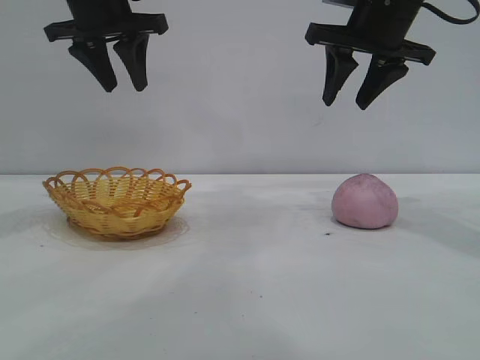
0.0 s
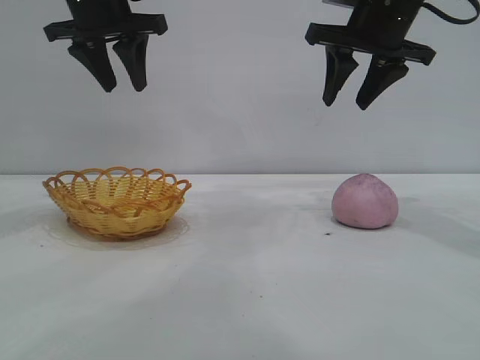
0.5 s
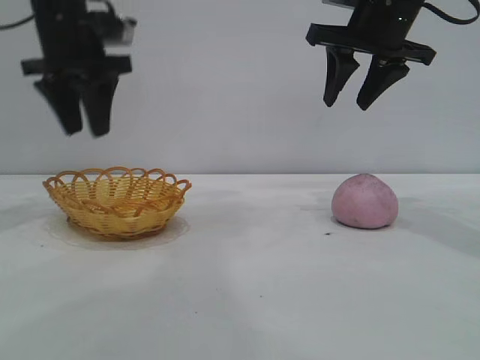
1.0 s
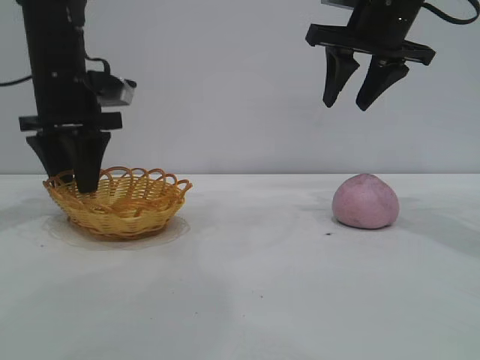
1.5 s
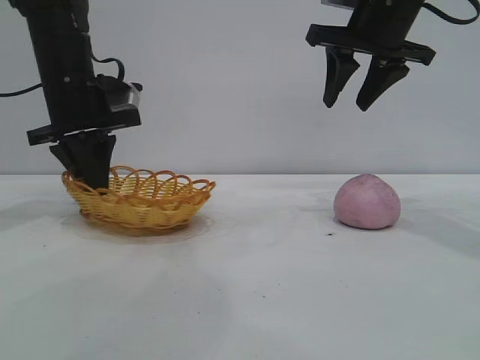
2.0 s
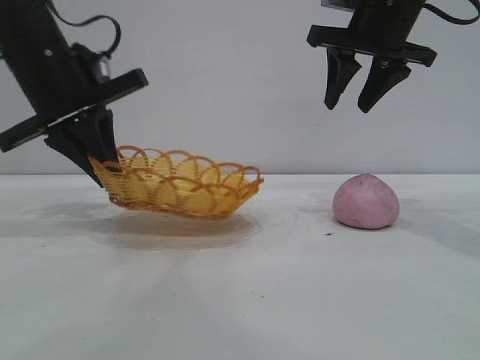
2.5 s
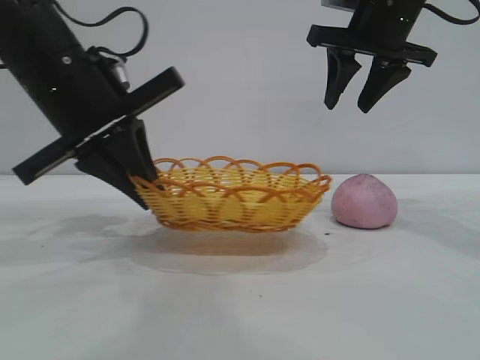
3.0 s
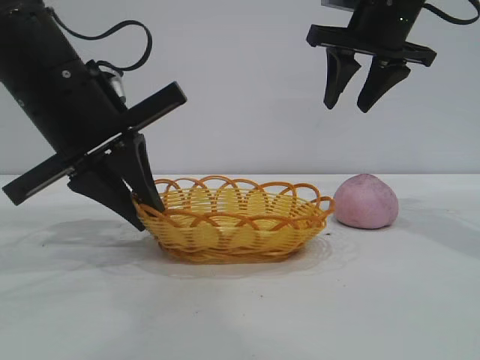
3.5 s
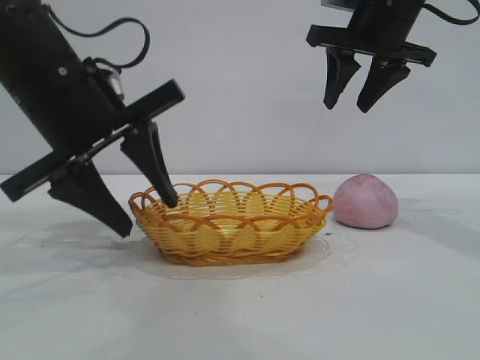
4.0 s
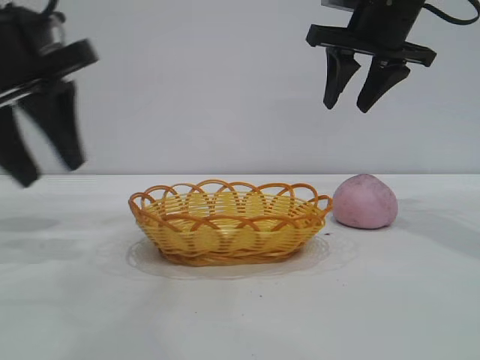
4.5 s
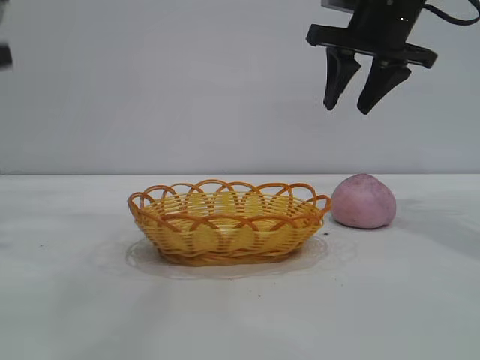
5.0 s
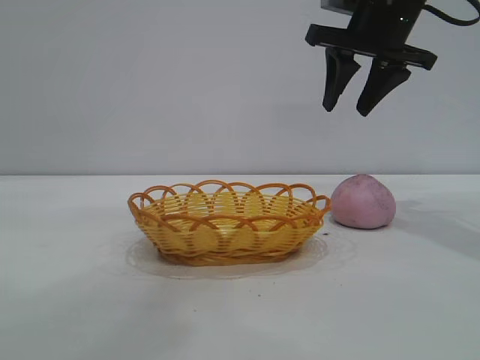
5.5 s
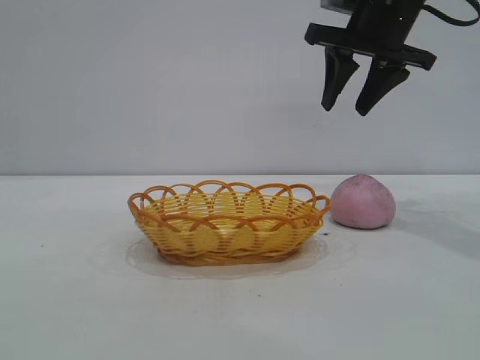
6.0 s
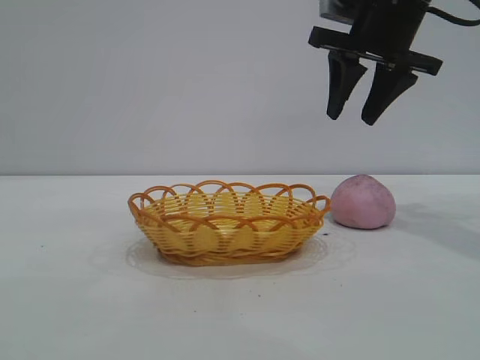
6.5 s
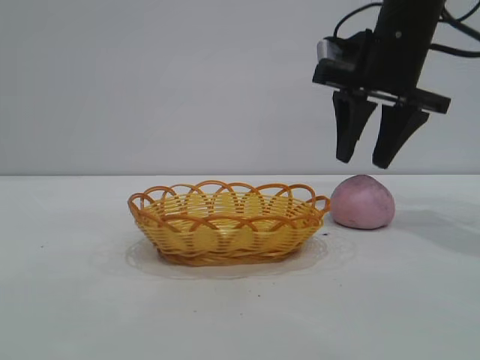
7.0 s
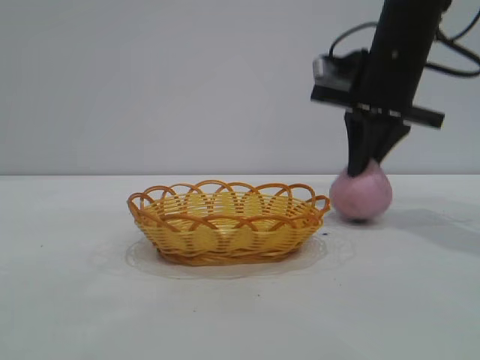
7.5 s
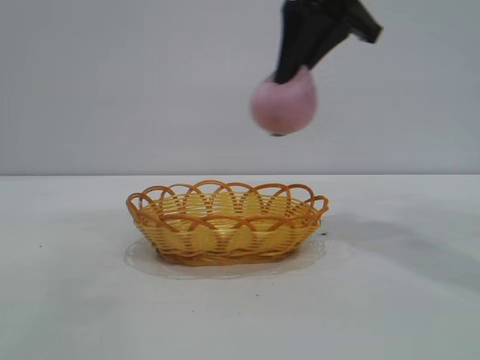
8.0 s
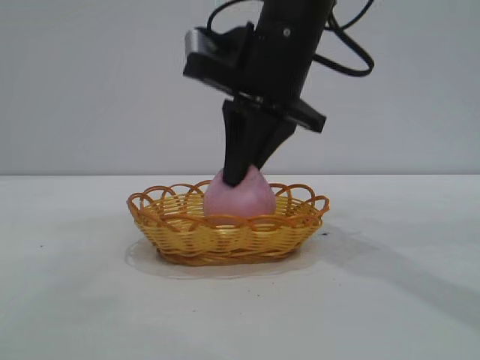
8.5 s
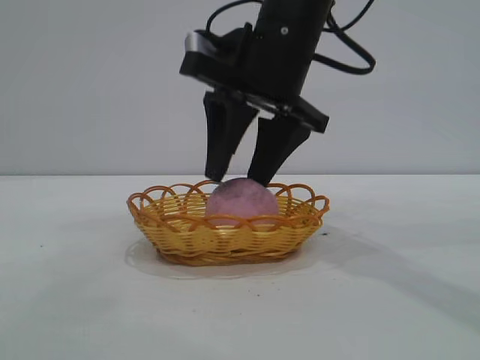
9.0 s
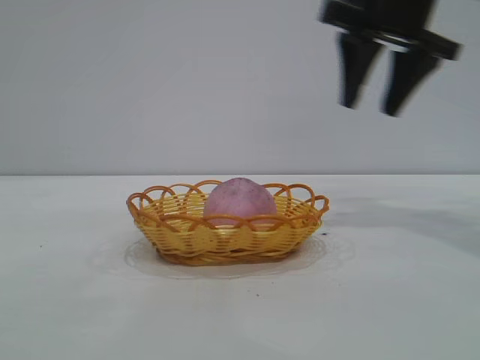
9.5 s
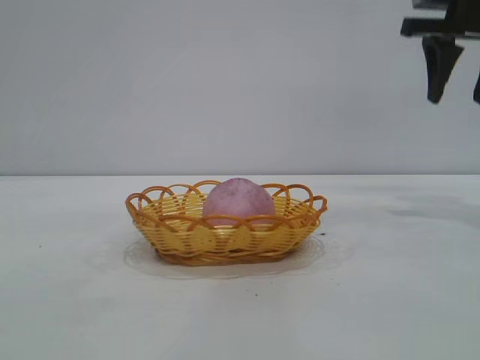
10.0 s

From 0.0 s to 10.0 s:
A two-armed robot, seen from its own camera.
Task of the whole recording: pick up the peach and put it into the basket.
Step, from 0.0 s to 4.0 s: Move the basket to the center of view.
Step, from 4.5 s to 7.5 s: Pick up the peach.
Step, from 8.0 s to 9.0 s: place the peach into the basket.

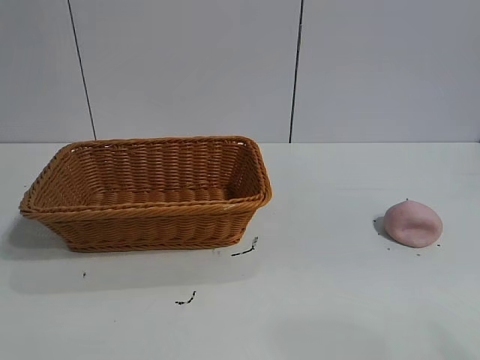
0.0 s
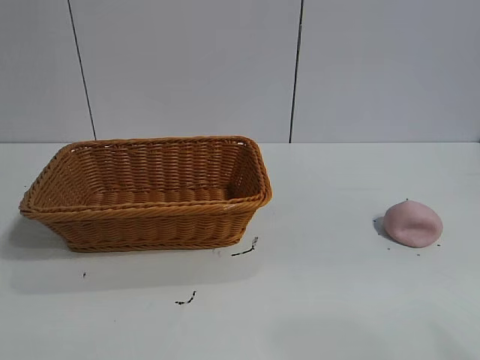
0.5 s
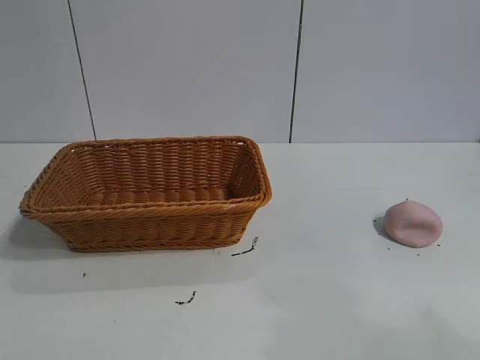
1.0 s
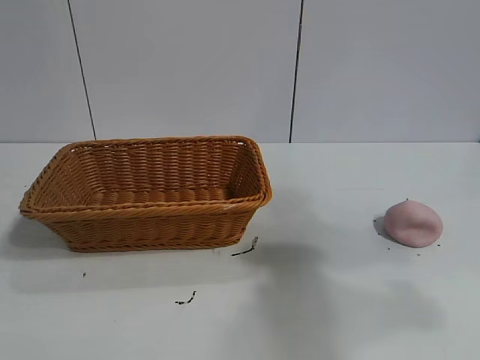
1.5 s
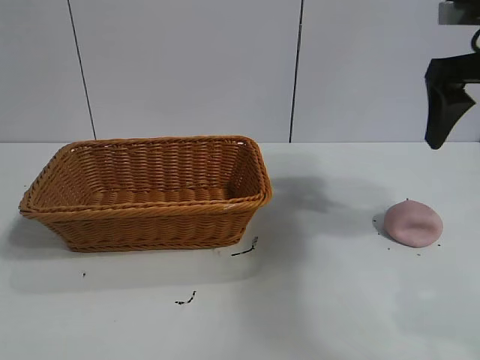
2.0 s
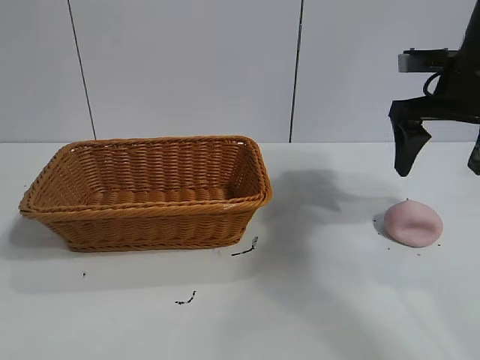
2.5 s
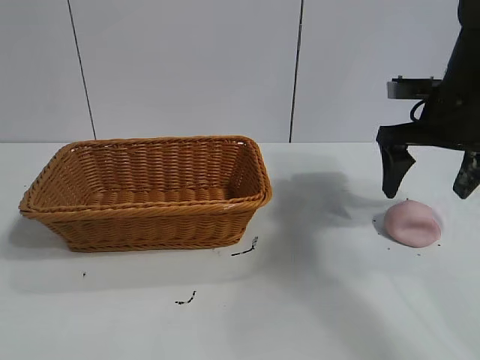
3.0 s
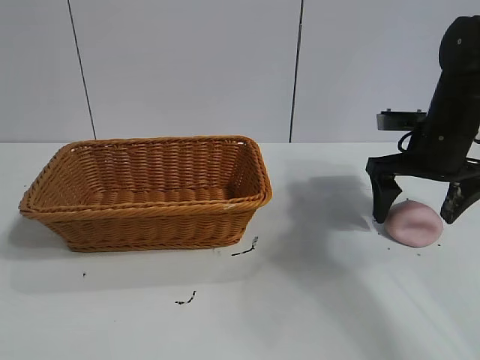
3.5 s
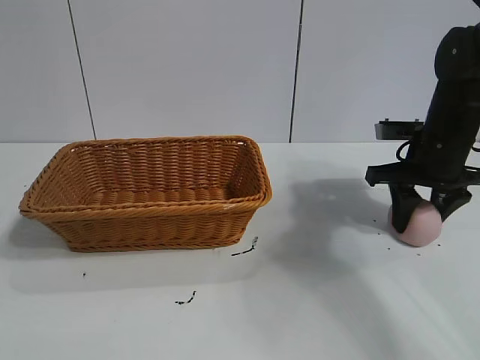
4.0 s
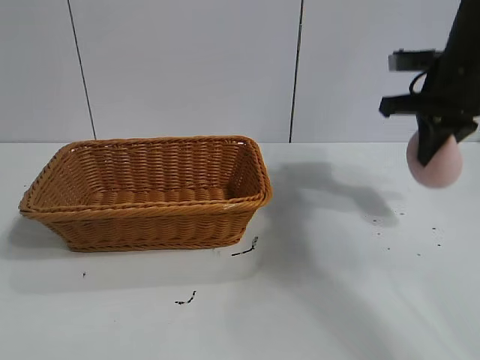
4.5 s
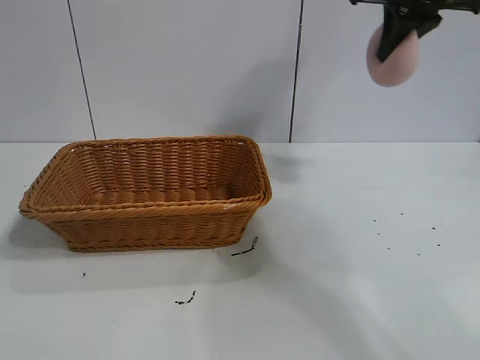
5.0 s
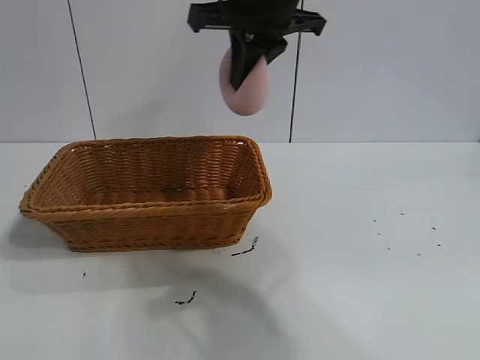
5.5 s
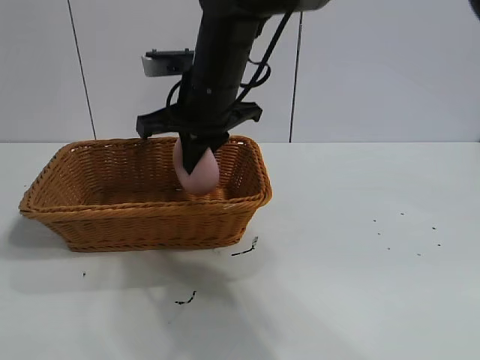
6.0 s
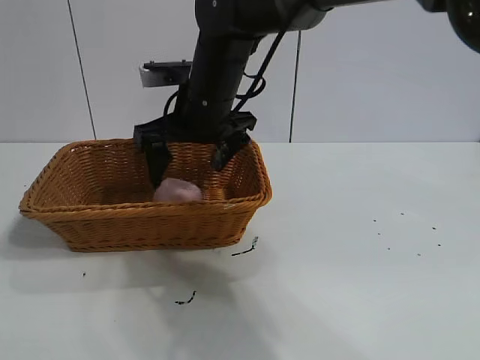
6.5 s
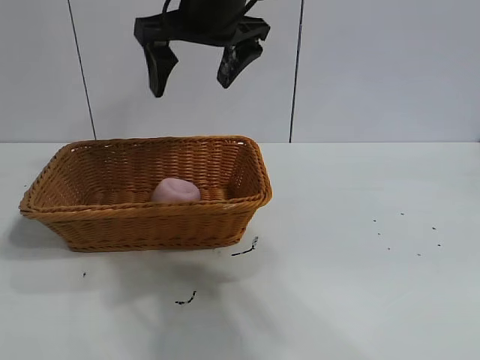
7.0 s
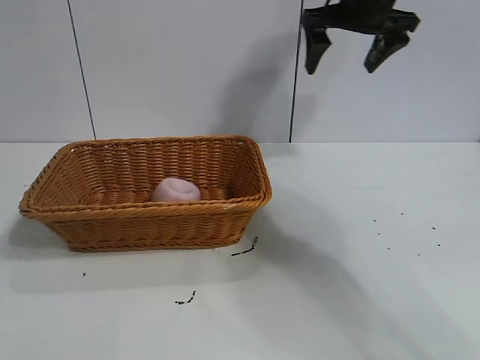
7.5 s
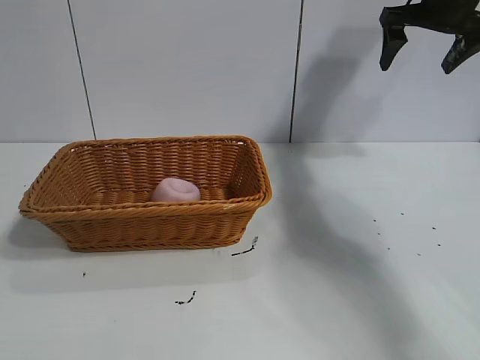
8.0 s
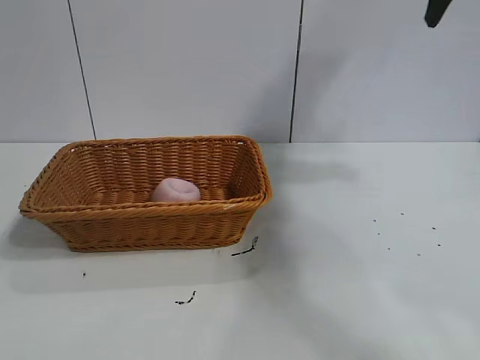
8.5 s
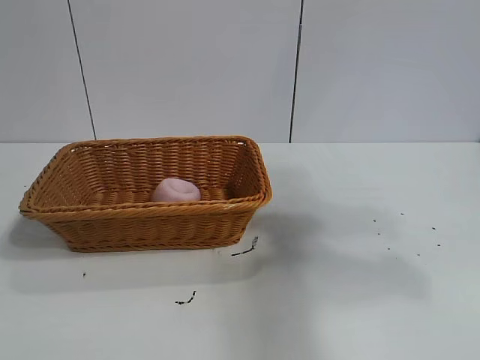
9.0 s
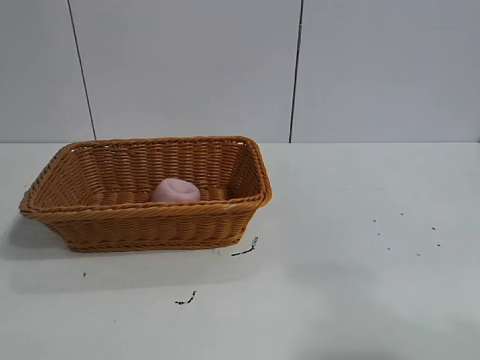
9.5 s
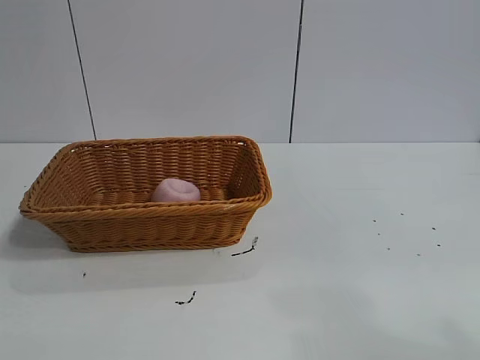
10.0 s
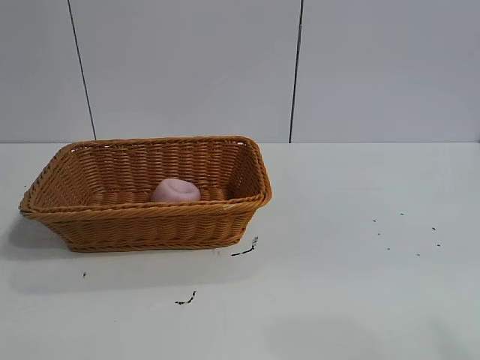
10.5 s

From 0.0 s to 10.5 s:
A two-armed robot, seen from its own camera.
Task of the whole recording: pick up the peach and put it into the basket.
Step, from 1.0 s to 4.0 s: Grasp the peach with right gripper.
Step, from 4.5 s to 6.0 s: Place the peach in the basket with right gripper.
